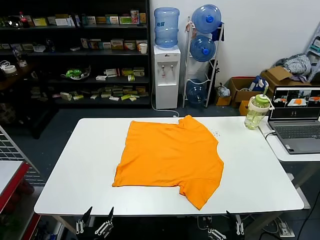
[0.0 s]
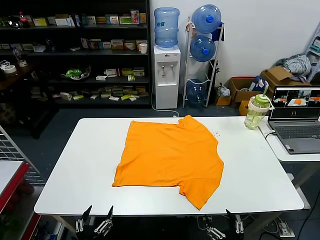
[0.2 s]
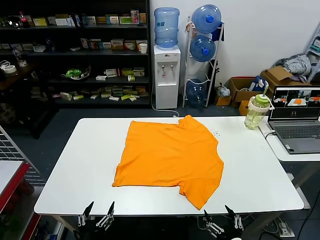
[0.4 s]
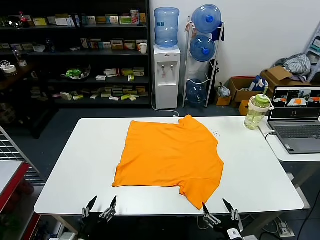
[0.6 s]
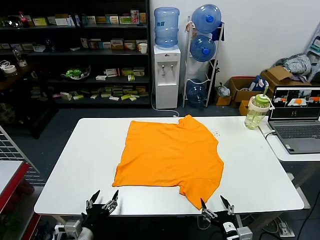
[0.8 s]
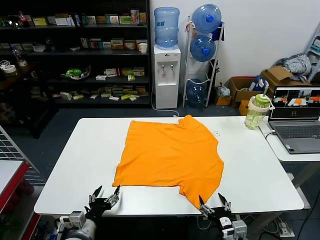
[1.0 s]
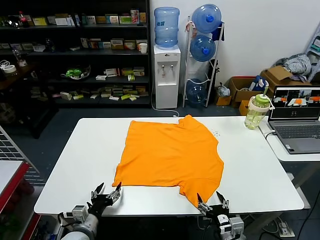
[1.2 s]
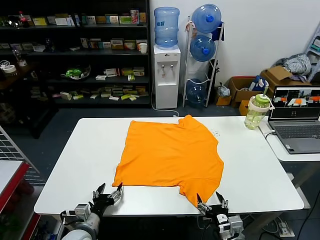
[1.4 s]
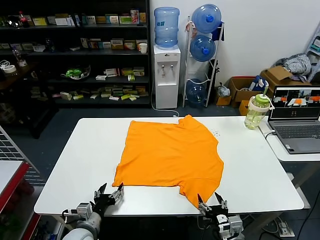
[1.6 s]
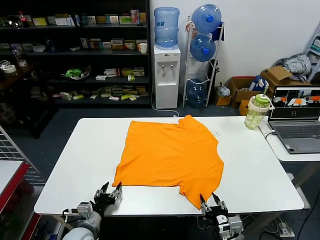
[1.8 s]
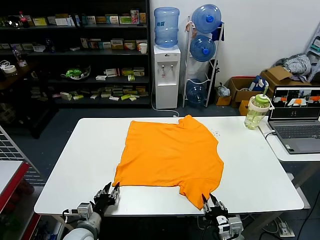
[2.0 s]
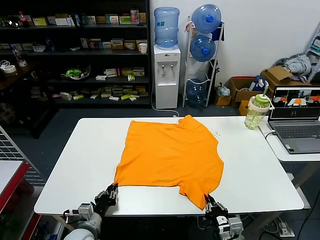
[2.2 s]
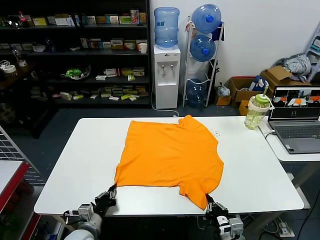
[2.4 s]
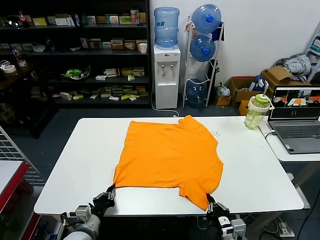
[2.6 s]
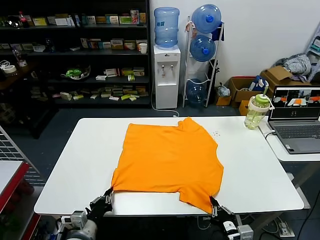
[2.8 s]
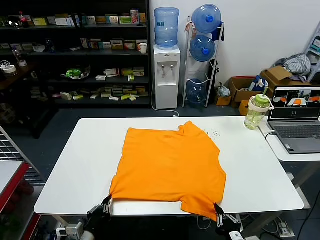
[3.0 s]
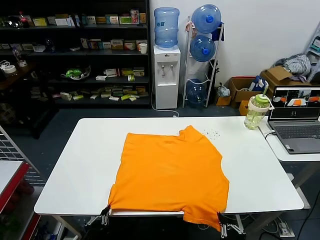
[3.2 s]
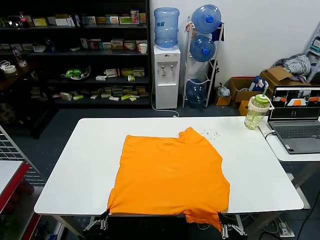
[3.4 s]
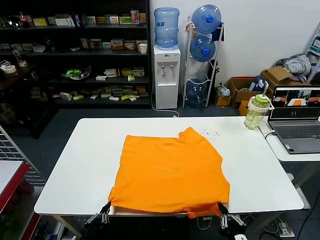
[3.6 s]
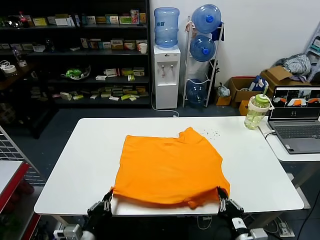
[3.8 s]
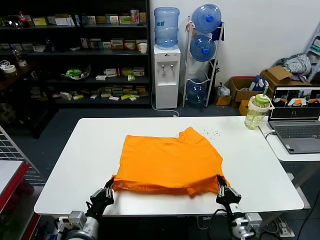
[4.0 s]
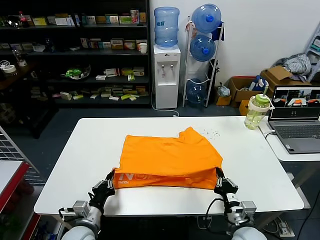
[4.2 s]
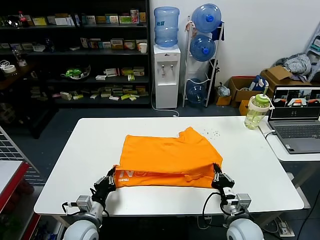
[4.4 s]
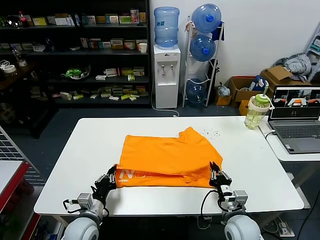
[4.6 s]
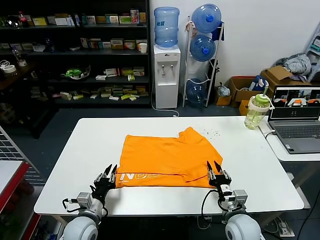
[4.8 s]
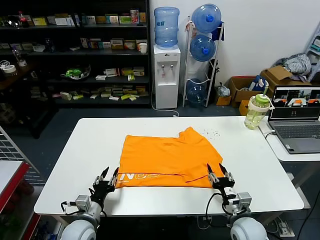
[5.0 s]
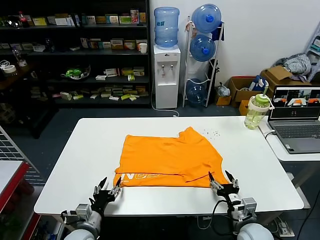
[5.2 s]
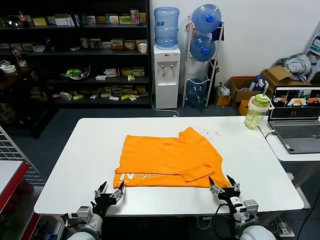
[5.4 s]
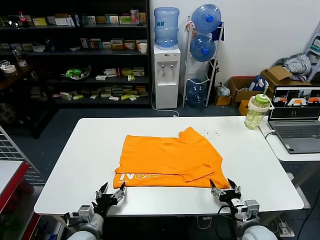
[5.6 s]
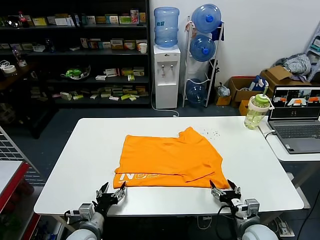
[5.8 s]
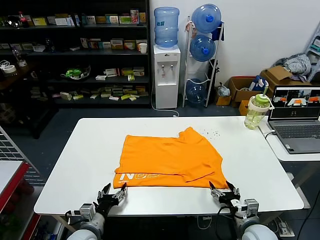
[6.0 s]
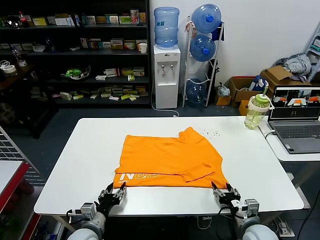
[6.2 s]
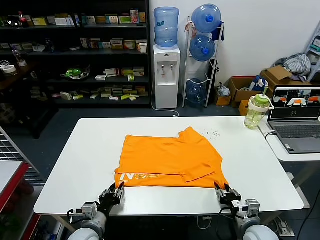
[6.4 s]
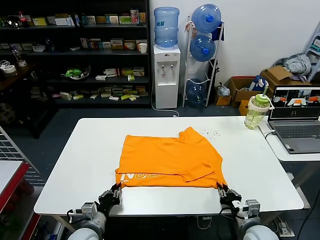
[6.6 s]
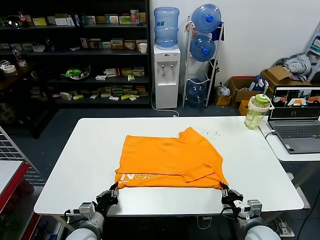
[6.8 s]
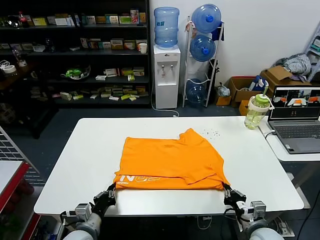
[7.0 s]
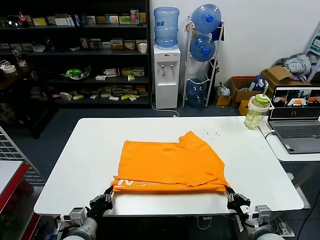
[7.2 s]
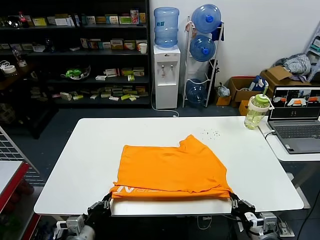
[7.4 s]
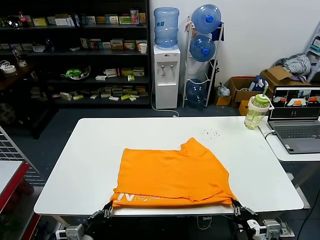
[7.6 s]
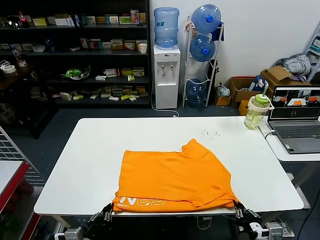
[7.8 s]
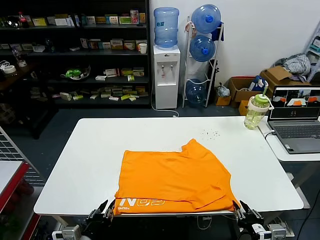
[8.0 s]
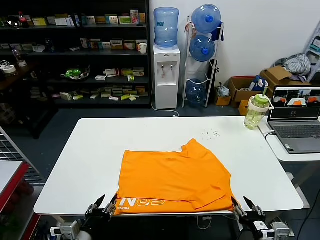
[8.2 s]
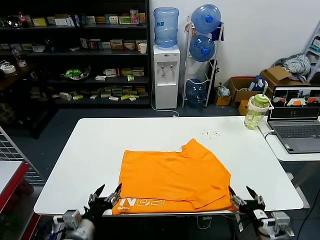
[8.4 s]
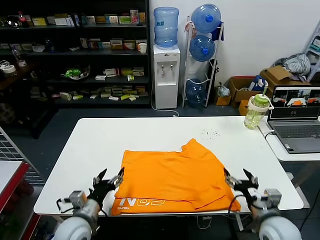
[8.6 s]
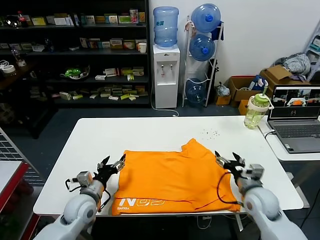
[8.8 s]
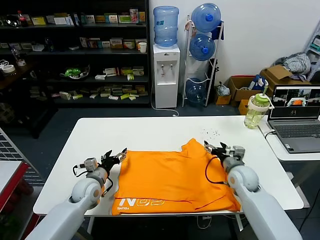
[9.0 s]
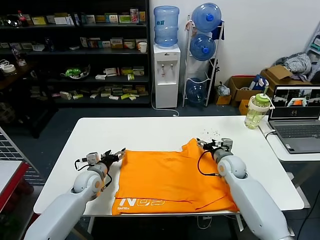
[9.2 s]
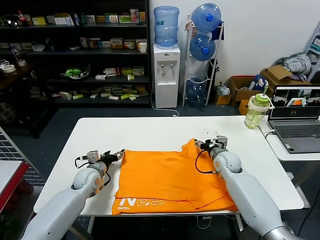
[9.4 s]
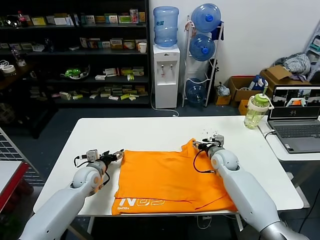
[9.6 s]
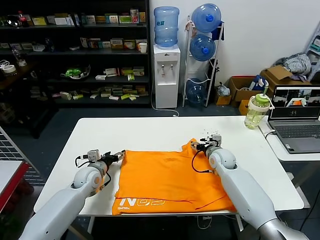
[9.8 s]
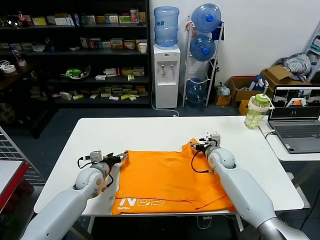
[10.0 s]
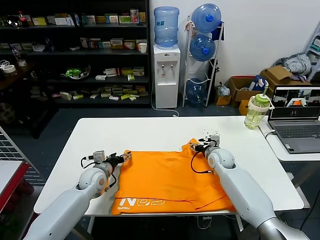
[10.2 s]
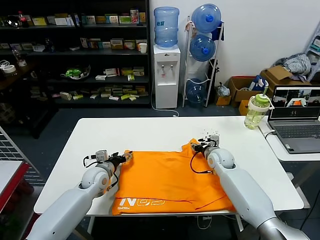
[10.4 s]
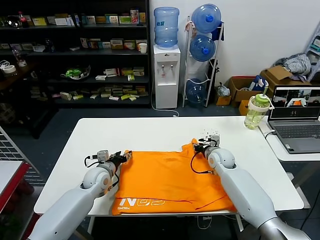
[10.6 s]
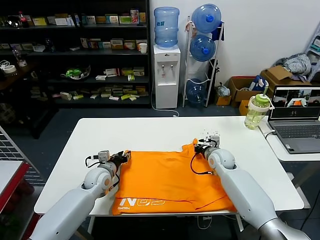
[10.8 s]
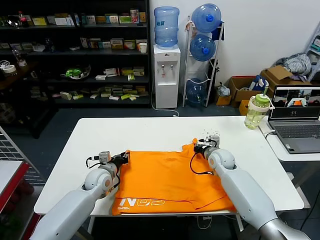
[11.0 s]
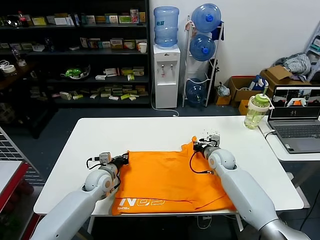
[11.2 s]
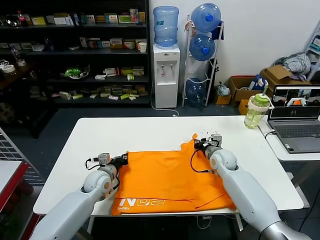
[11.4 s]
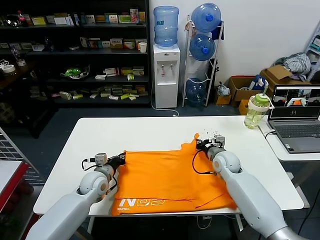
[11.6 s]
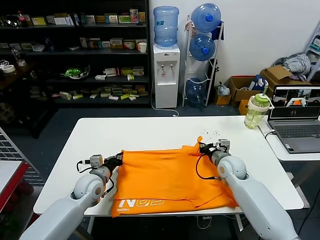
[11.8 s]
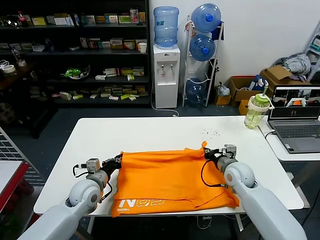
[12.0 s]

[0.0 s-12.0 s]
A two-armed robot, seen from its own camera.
Task of the whole recording: fold and organize the clothes.
Step, 0.0 to 2.2 s: use both grippers simultaneously to clamp the lower edge of the clothing fabric.
Step, 2.4 to 4.6 s: use both grippers to drag the lower edge of the fabric forward and fold it over the upper edge.
Step, 4.8 to 7.8 s: Drag the clothes downward with both gripper.
Step, 8.0 to 11.0 s: use both grippers simultaneously to clamp the upper edge of the clothing fabric.
1.6 to 3.0 s: Both grippers travel together backward, approximately 5 cm. The left gripper closes its fingers, while the right gripper closes its fingers.
3.0 to 4.4 s: The left gripper moves forward, approximately 10 cm. The right gripper shifts approximately 15 cm forward.
4.4 to 6.0 s: The left gripper opens up. The right gripper goes some 5 cm to the right, and opens its fingers.
6.0 to 7.6 s: Both grippers travel together backward, some 10 cm. The right gripper closes up. The left gripper closes its fingers.
7.6 to 9.0 s: Both grippers travel together forward, about 25 cm. The left gripper opens its fingers; the right gripper opens up.
9.0 to 10.4 s: The grippers both shift forward by about 5 cm.
10.4 to 12.0 s: Both grippers move backward, roughly 10 cm. The right gripper closes. Meanwhile the left gripper closes its fingers.

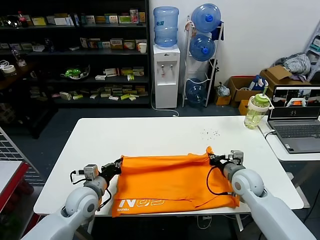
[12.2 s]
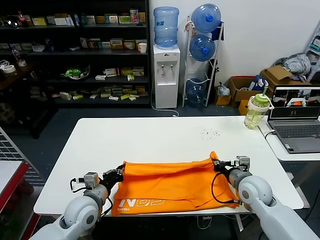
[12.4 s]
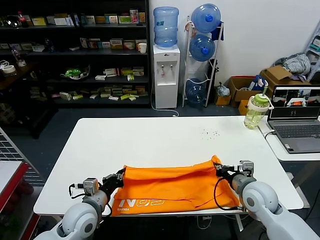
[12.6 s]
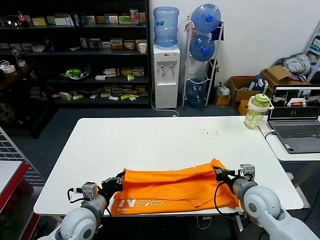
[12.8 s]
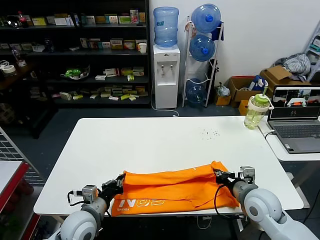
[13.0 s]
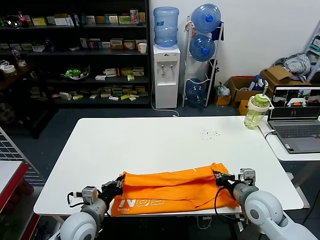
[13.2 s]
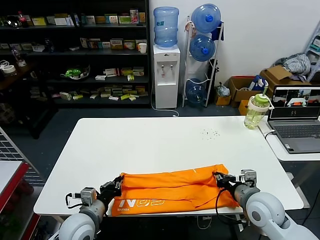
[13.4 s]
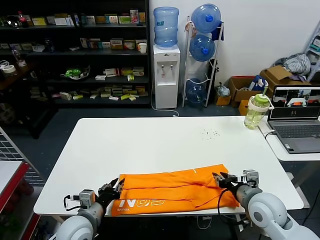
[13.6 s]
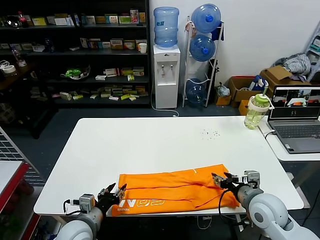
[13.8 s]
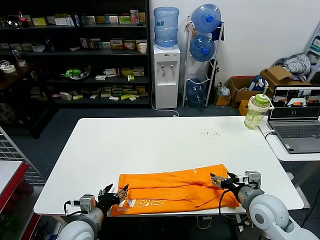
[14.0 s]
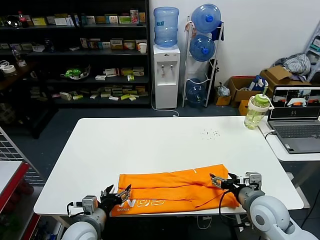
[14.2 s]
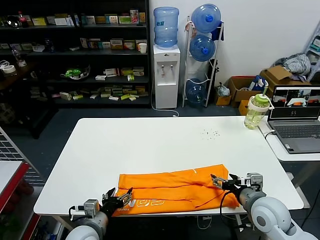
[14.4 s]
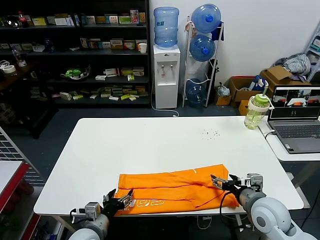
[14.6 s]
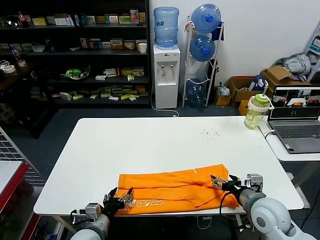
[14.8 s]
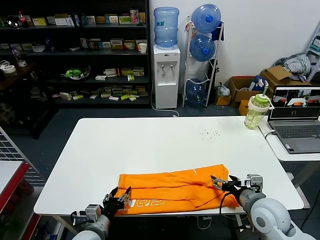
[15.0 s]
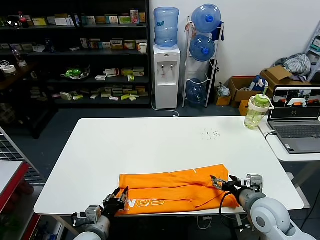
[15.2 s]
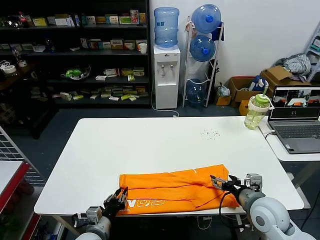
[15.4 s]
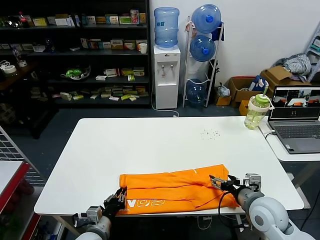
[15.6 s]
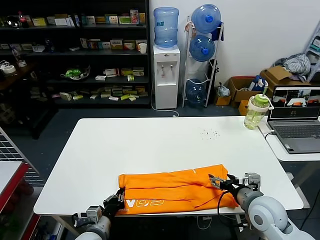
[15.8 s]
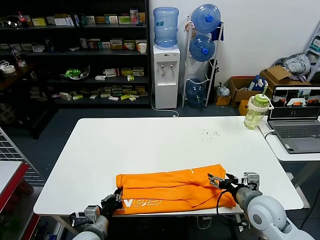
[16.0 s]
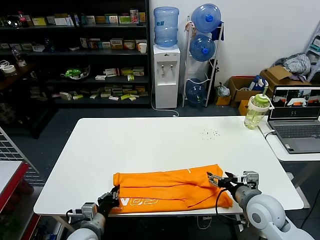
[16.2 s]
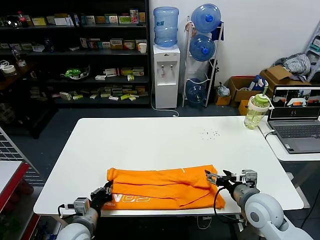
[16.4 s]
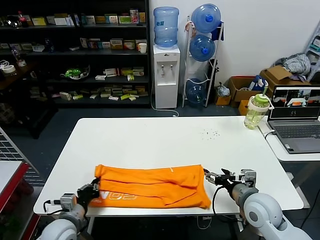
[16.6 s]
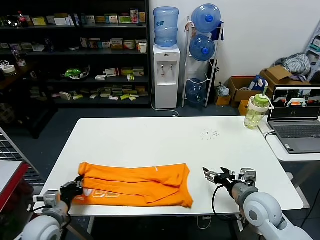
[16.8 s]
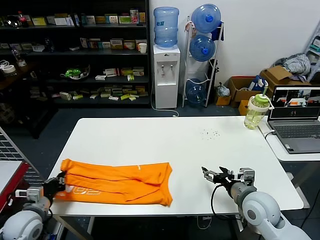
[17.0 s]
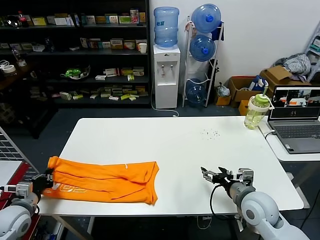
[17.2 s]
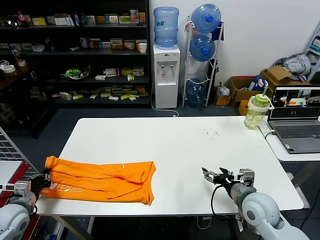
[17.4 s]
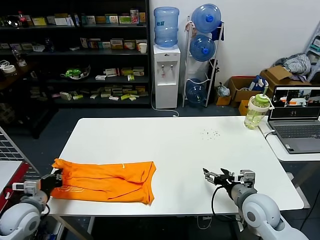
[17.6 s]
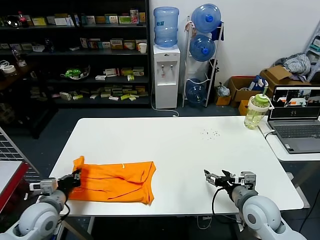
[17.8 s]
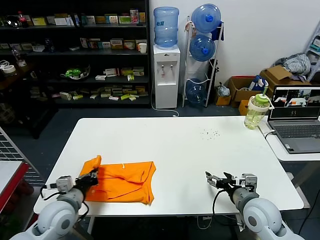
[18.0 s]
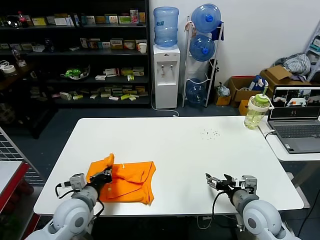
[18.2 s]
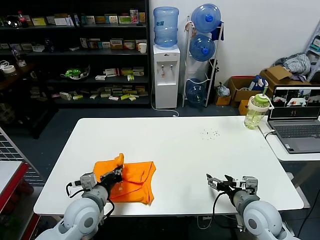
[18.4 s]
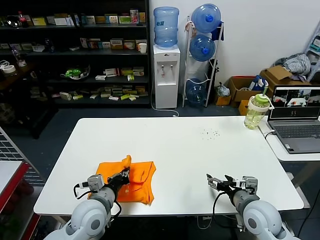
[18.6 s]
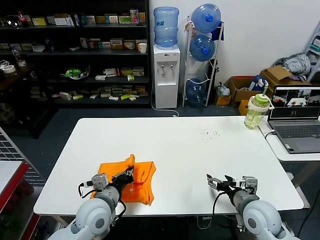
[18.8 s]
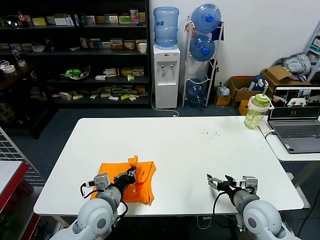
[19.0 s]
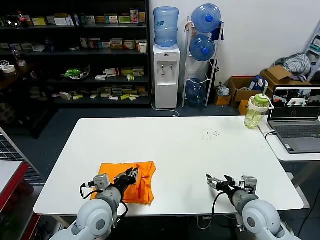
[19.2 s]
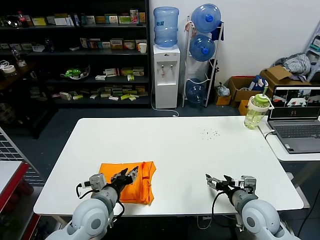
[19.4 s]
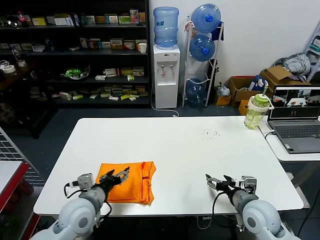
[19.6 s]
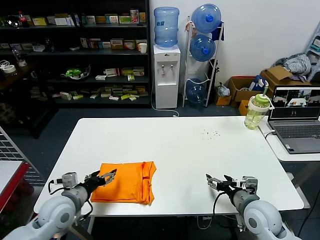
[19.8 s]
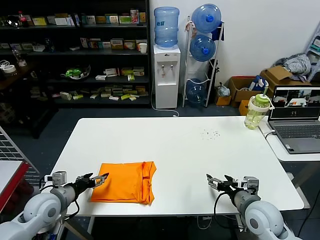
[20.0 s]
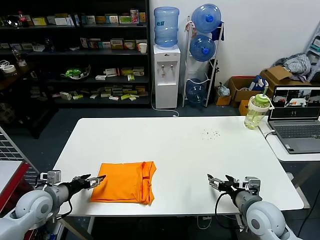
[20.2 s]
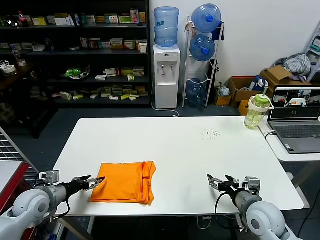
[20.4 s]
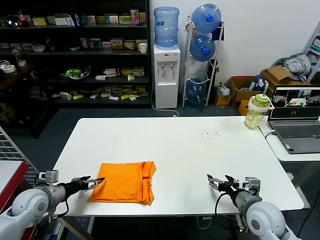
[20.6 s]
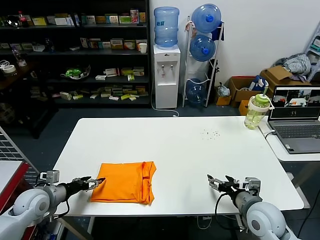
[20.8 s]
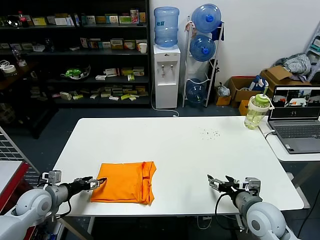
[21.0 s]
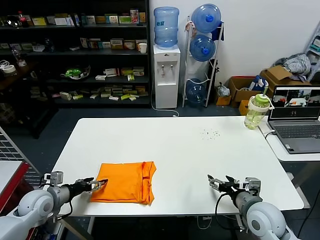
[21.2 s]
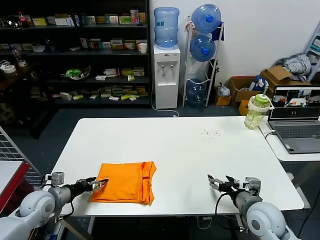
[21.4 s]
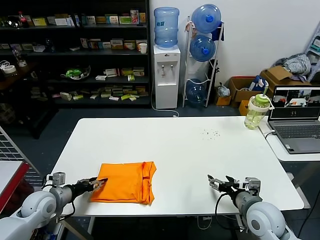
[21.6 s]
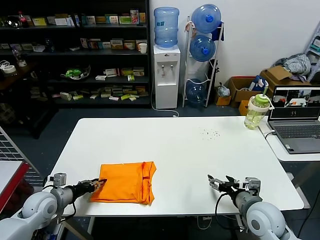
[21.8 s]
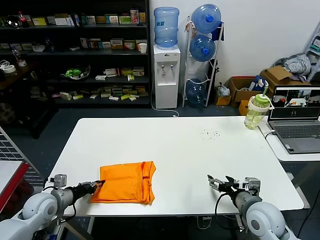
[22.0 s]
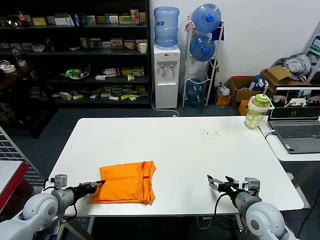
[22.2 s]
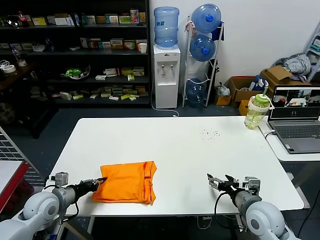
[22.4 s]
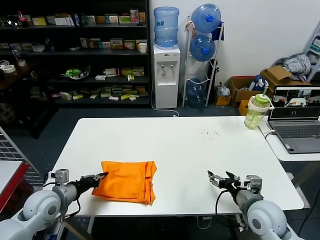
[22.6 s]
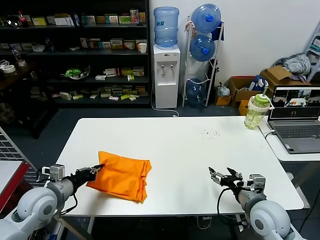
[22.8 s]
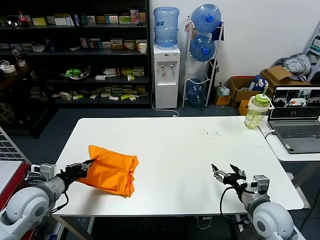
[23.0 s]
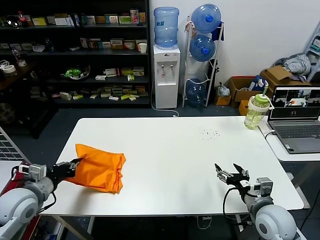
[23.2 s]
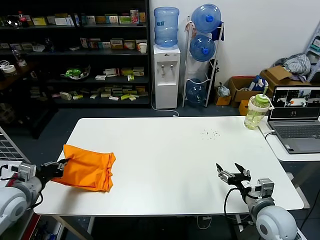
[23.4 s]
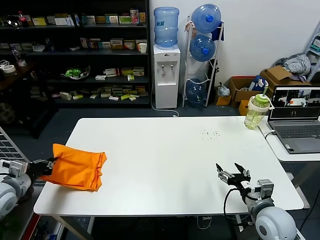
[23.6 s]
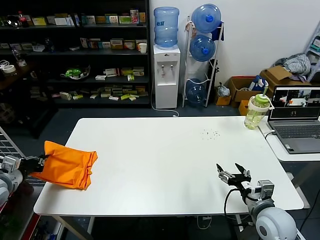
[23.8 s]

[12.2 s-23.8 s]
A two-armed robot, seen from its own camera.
Task of the whole recording: fold and organize the clothes.
Step, 12.2 to 13.6 s: use both grippers to drag the upper edge of the fabric backward and fold it over the lower edge.
Step, 13.8 to 15.6 s: use the left gripper to clamp the left edge of the fabric.
Step, 16.0 to 19.2 s: use the left gripper to drag the left edge of the fabric to the left and folds it over the right edge.
12.2 to 13.6 s: Both grippers move backward, about 10 cm. The left gripper opens its fingers; the right gripper opens up.
13.6 to 15.0 s: The right gripper opens up; the left gripper shifts some 5 cm downward, and opens.
15.0 to 16.6 s: The left gripper shifts approximately 5 cm to the left, and closes up.
16.6 to 18.0 s: The left gripper travels upward by approximately 5 cm, and goes to the left and returns, approximately 20 cm each way.
18.0 to 19.4 s: The left gripper travels to the right by some 15 cm, and opens its fingers.
19.4 to 21.0 s: The left gripper moves to the left, some 25 cm, and opens its fingers.
21.0 to 22.4 s: The left gripper closes up.
22.4 to 23.8 s: The left gripper heads to the left and upward, covering about 15 cm.
